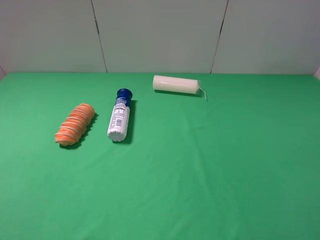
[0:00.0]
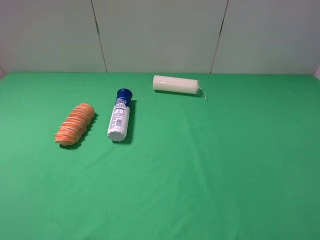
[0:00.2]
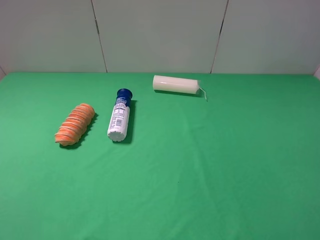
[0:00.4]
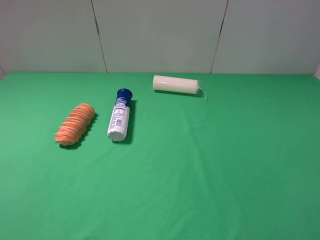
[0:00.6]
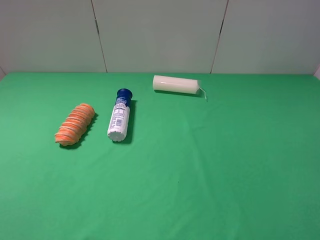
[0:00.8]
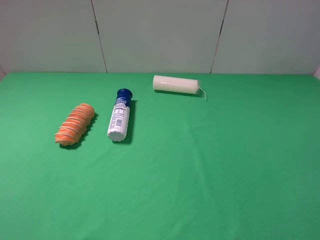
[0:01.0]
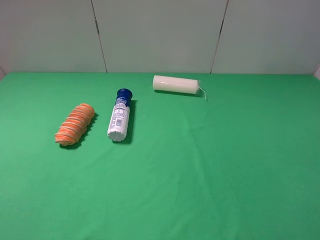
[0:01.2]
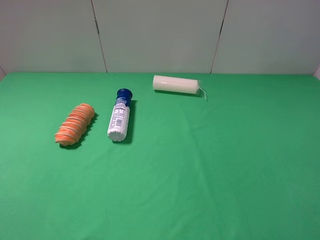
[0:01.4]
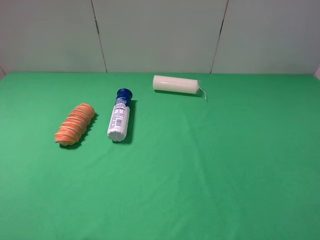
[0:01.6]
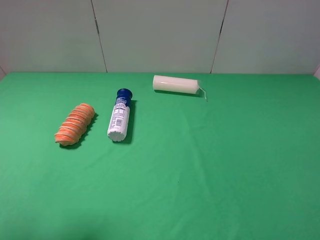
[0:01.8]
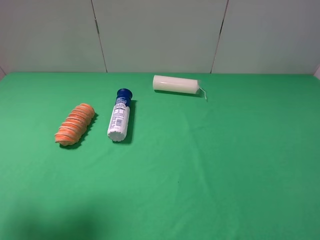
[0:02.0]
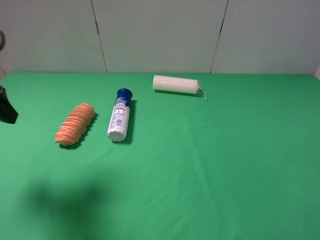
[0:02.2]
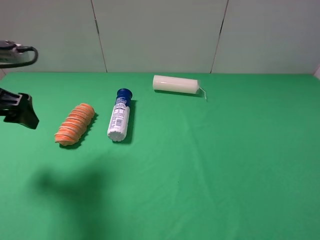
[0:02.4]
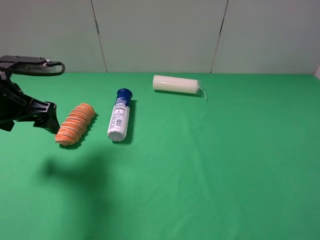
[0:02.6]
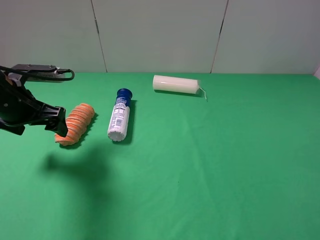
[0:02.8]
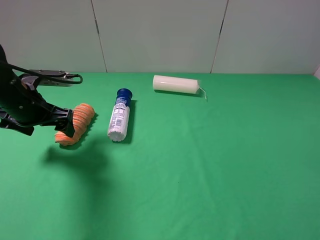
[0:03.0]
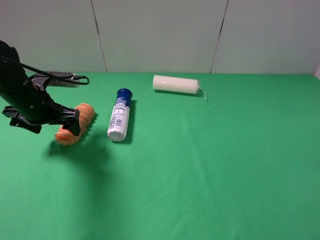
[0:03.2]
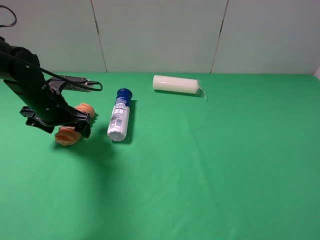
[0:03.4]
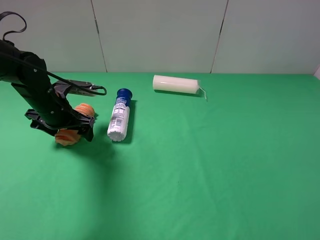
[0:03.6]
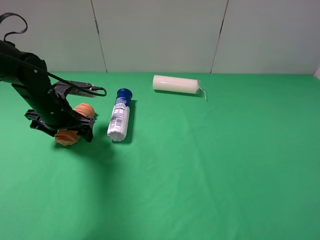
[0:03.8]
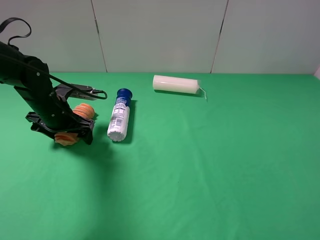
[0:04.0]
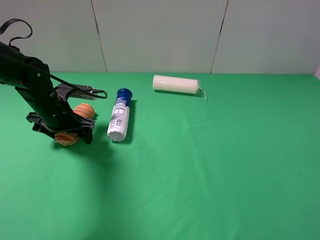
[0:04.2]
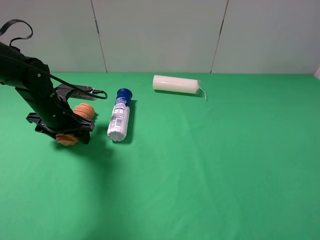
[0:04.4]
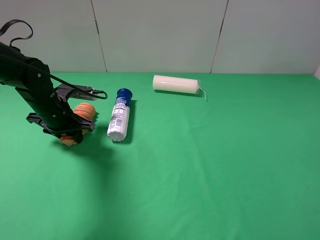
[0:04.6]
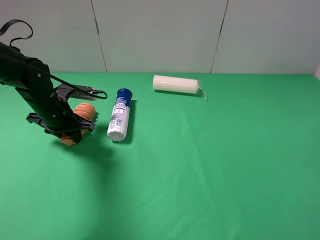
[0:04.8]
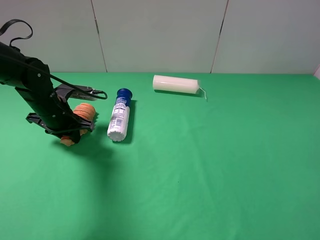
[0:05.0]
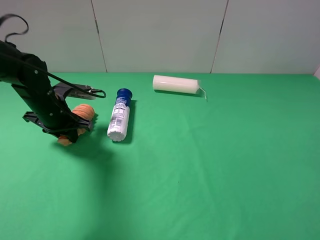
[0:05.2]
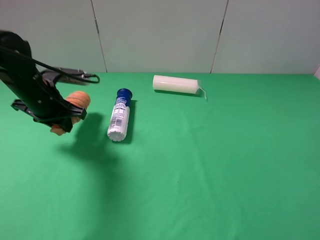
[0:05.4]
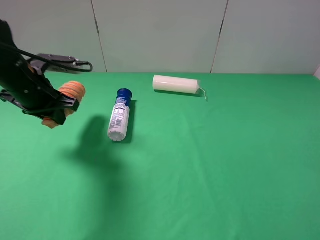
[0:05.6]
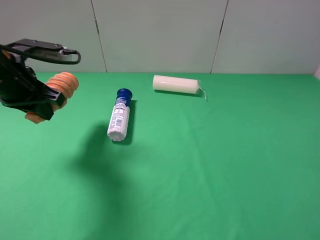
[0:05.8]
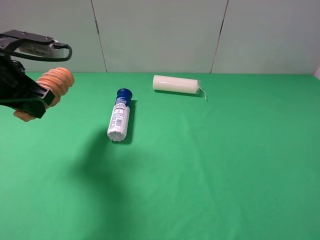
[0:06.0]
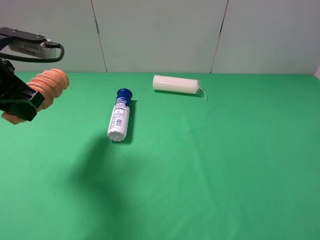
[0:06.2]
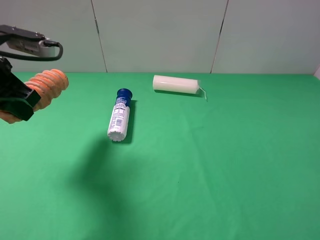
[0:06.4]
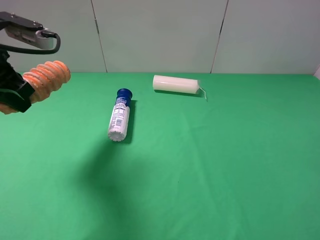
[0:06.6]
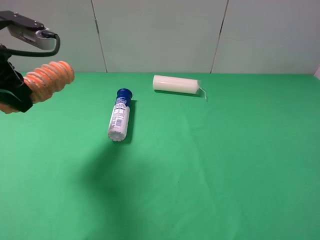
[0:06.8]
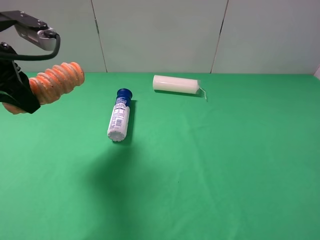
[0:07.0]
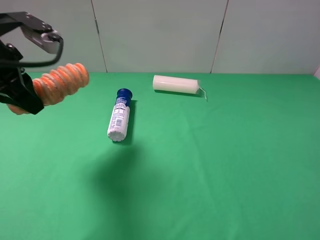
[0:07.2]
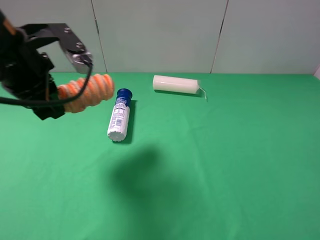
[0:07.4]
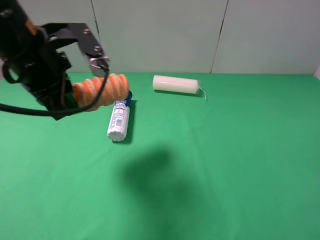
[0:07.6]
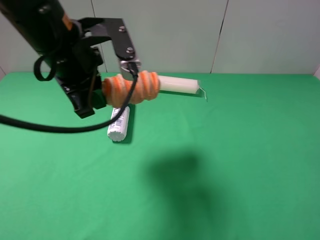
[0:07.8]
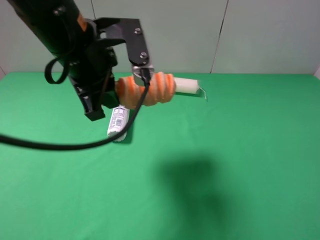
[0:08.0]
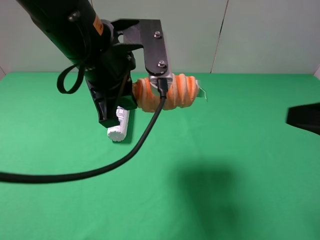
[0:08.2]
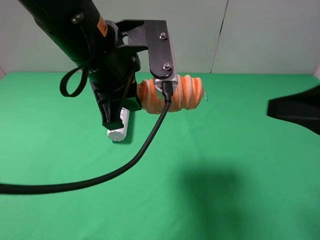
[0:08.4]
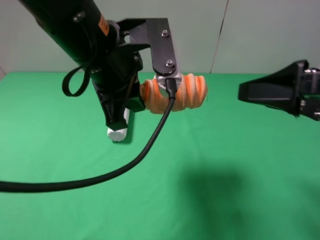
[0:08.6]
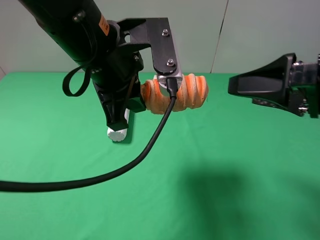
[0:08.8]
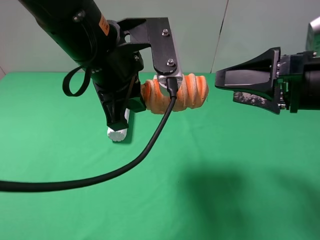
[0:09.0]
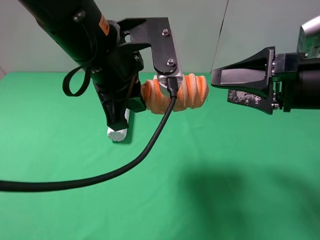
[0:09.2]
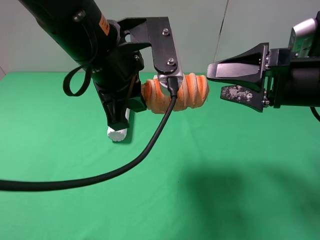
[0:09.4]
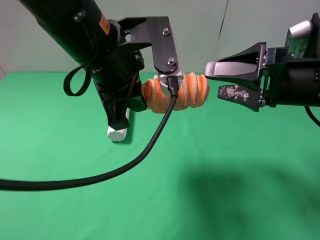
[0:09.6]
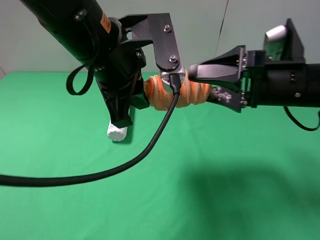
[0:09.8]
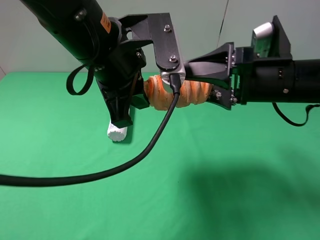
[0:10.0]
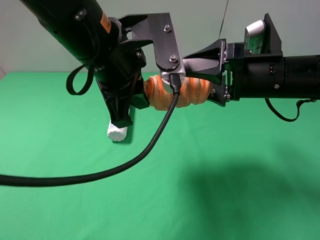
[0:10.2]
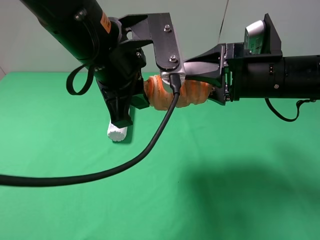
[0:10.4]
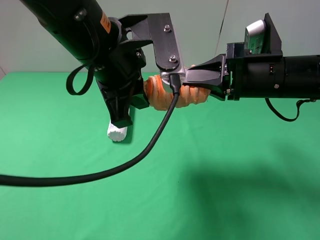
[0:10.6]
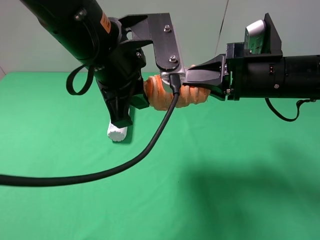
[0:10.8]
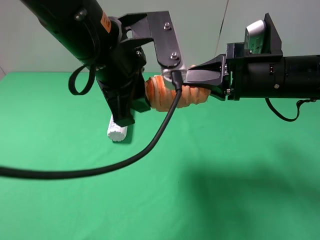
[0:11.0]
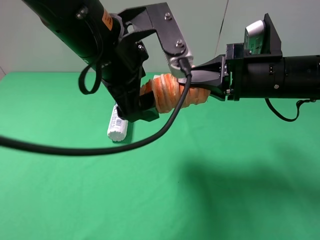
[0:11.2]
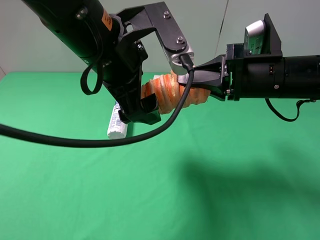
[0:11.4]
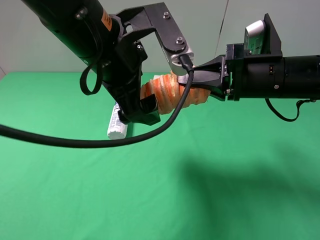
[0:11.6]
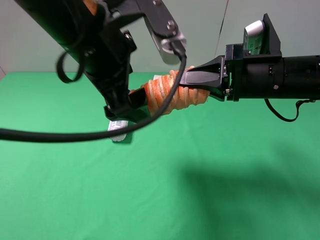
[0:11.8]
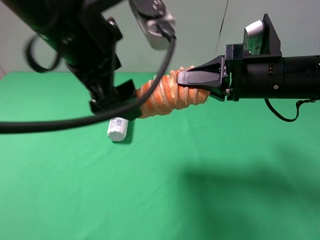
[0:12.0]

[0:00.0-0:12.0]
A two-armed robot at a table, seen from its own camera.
Task of the whole recording: use the left gripper to pick up the item and transfer it from the left gripper to the right gripper.
Step, 0:00.0 to 0:04.8: Use the left gripper to grab the long bread on the left side of the table.
Step, 0:05.0 to 0:11.8: Pass the long bread to the right gripper.
0:01.6 to 0:03.0: The left gripper is displaced forward and downward by approximately 30 cm.
0:03.0 to 0:04.4: The left gripper is displaced downward by about 5 cm.
0:04.4 to 0:06.0: The left gripper travels upward and backward by roughly 15 cm, and closes its fingers.
0:06.0 to 0:07.6: The left gripper travels to the right by approximately 10 cm.
0:07.6 to 0:09.0: The left gripper travels to the right by roughly 10 cm. Meanwhile the right gripper is displaced forward and to the left by some 20 cm.
0:09.0 to 0:10.4: The right gripper shifts roughly 5 cm forward, and closes.
0:10.4 to 0:12.0: The left gripper ends up about 5 cm from where it was, and opens, while the right gripper closes up.

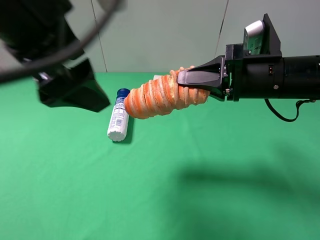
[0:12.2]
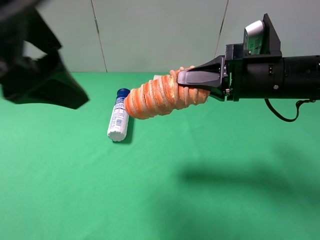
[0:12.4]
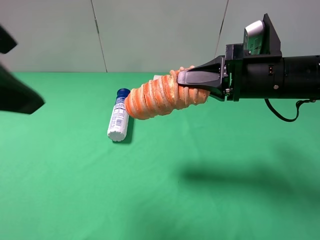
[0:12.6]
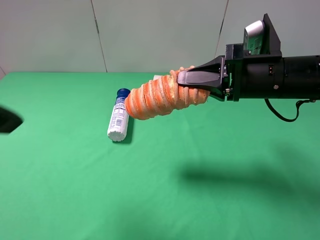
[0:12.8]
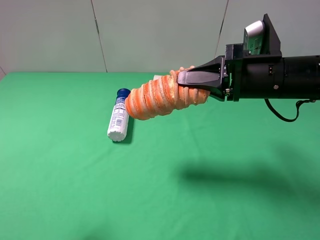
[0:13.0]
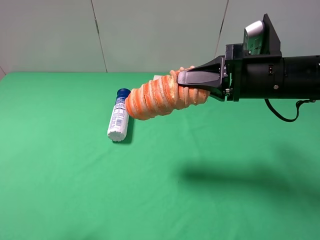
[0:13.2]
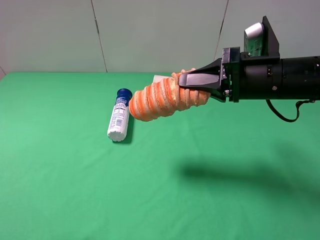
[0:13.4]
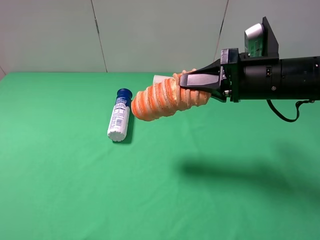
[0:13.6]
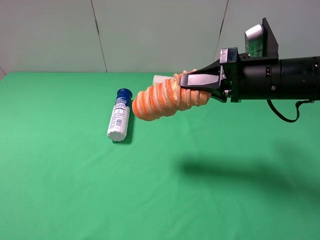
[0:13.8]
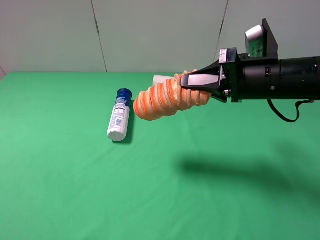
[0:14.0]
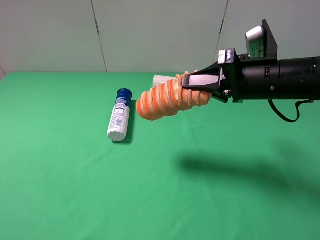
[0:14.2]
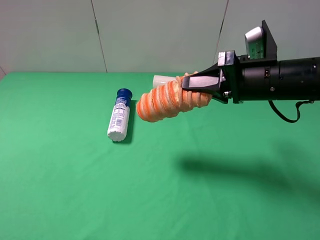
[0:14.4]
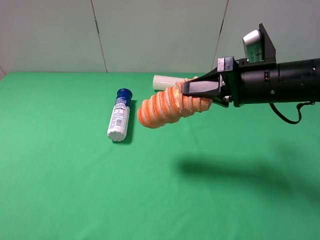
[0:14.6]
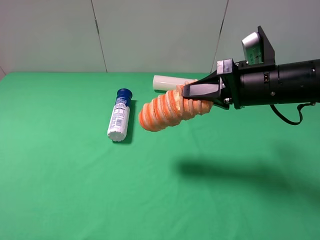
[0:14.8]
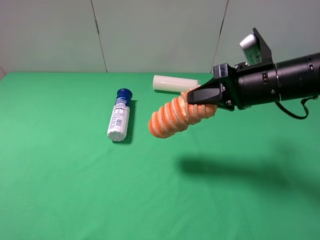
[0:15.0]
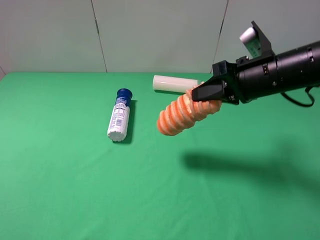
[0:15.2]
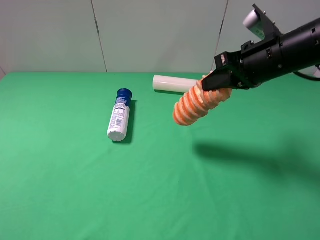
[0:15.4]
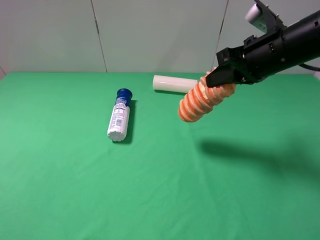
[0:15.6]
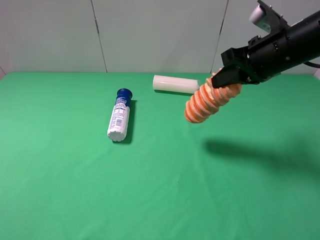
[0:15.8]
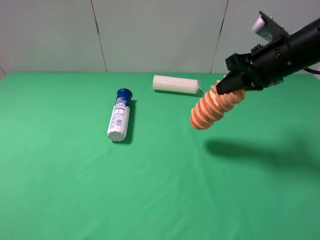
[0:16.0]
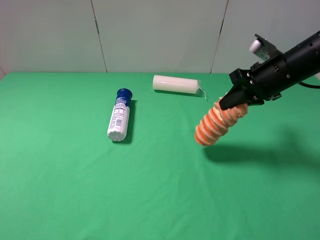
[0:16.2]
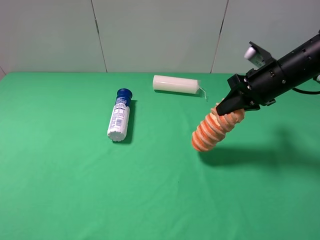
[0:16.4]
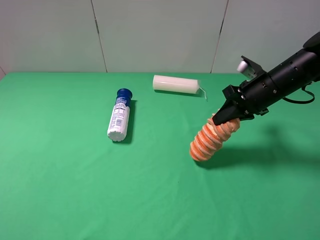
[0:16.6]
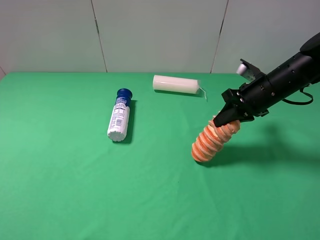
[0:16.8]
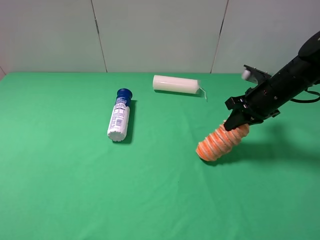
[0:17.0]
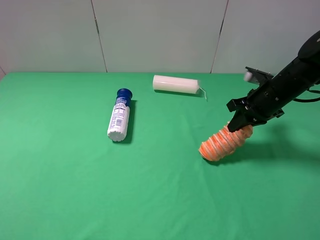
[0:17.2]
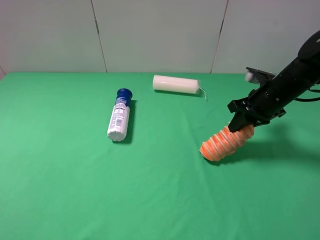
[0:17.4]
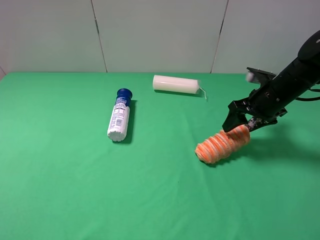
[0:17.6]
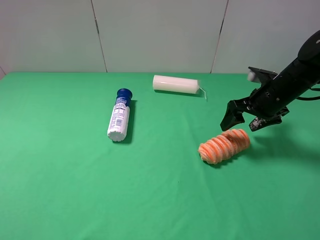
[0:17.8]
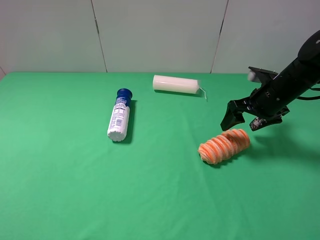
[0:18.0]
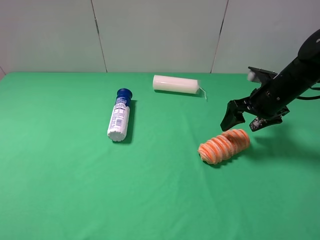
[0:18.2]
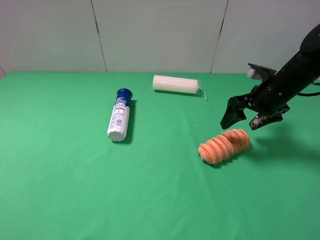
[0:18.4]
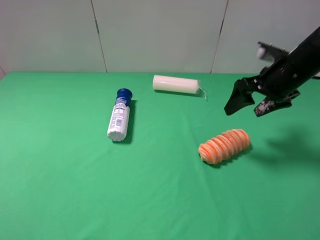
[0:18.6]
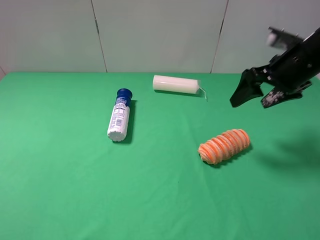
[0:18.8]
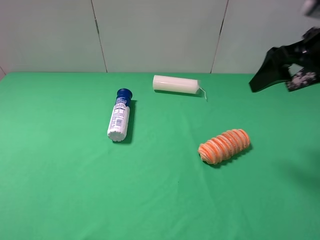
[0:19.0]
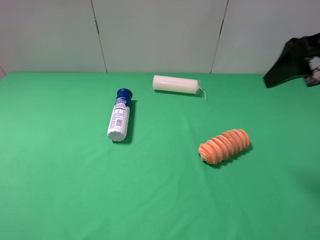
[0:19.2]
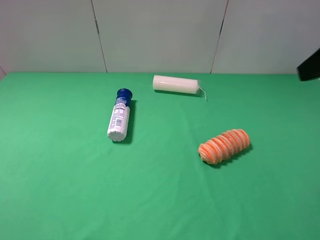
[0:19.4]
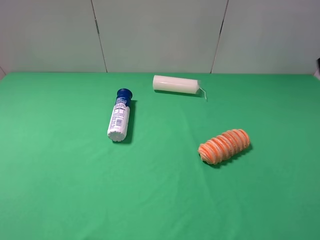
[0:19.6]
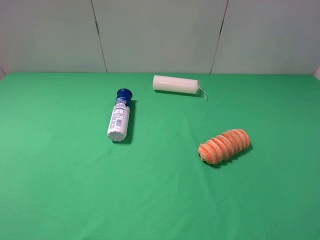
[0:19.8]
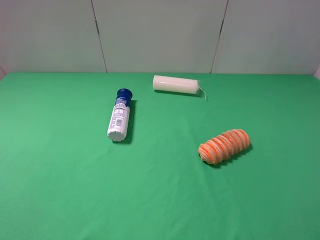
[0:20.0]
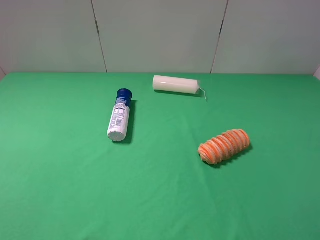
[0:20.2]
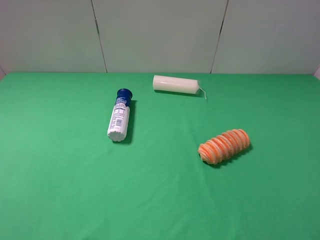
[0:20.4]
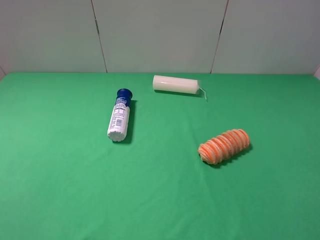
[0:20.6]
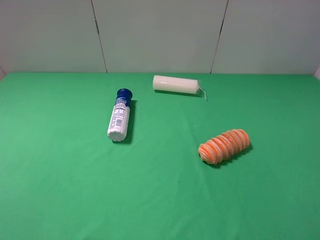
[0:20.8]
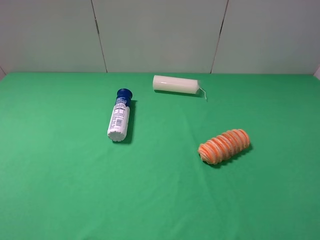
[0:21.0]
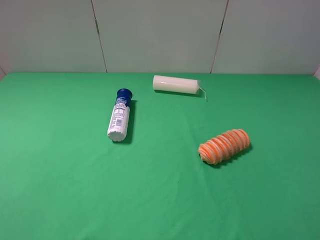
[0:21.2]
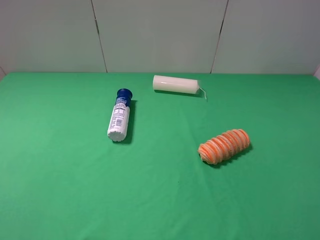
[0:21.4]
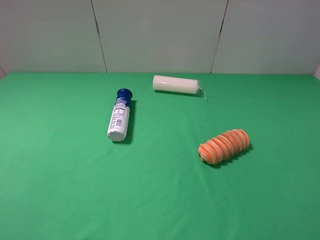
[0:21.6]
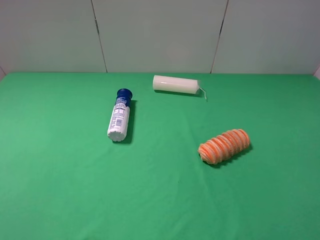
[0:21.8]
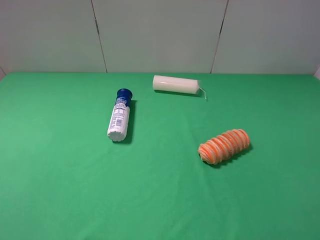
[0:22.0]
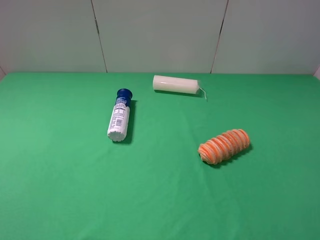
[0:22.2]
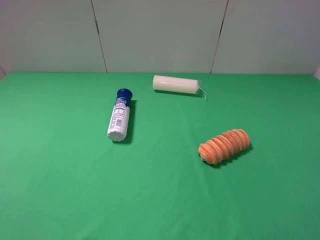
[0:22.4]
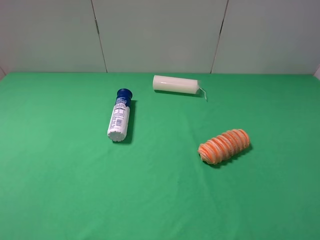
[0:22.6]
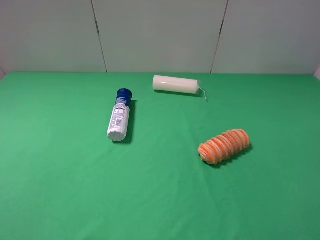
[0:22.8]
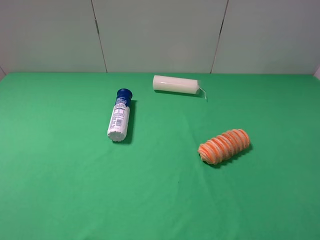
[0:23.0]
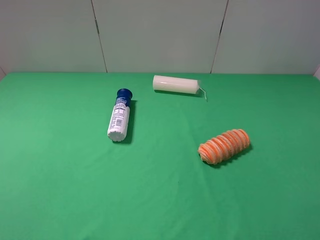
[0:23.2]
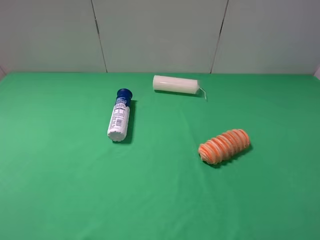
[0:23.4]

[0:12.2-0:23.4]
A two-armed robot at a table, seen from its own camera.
Task of the whole recording: use the left gripper to pick up the item and transfer it from the left gripper to the right gripper.
Step, 0:12.2 to 0:18.4: The right gripper places long bread on the right side of the table.
0:12.2 to 0:13.8: The left gripper moves to the left, backward and downward, some 25 cm.
0:15.4 to 0:17.0: The right gripper is displaced downward and to the right by roughly 10 cm.
0:17.0 to 0:18.6: The right gripper travels upward by some 5 cm, and opens up.
0:18.6 to 0:20.2: The right gripper goes roughly 30 cm backward.
0:21.8 to 0:23.4: Neither gripper changes place.
